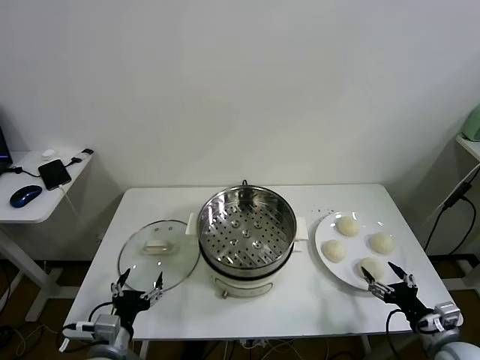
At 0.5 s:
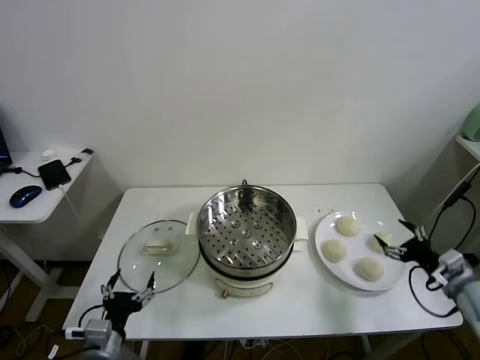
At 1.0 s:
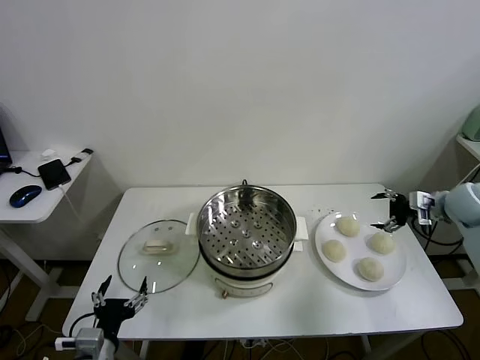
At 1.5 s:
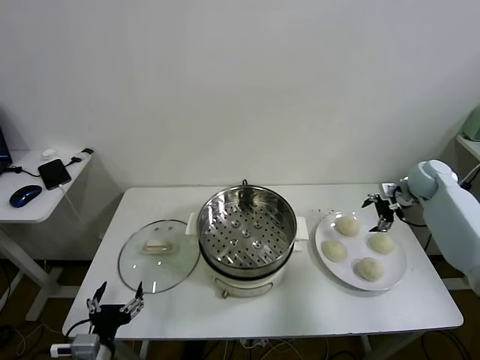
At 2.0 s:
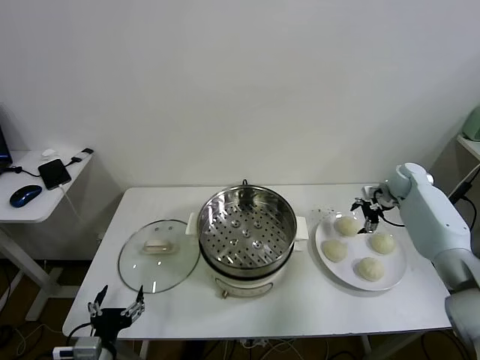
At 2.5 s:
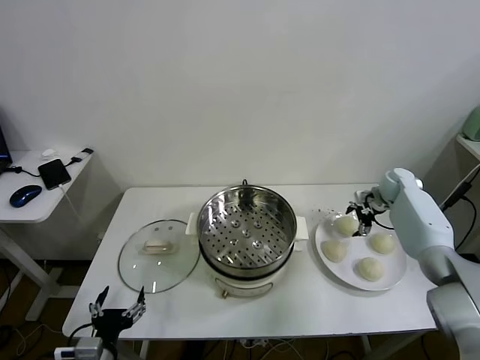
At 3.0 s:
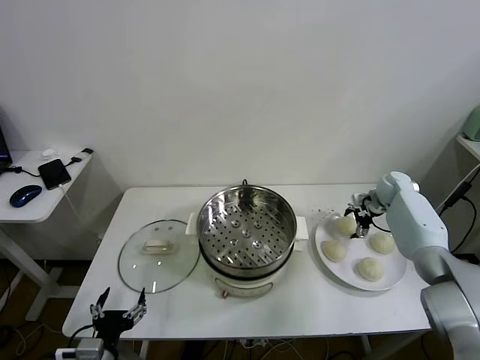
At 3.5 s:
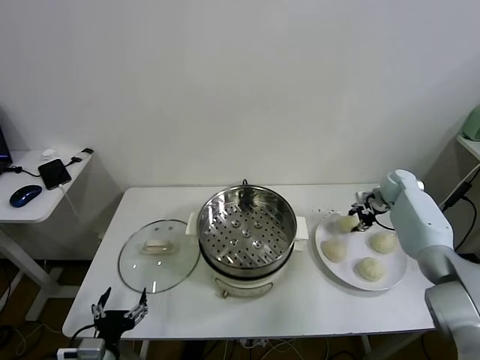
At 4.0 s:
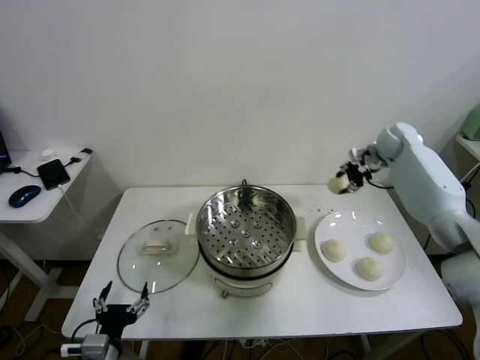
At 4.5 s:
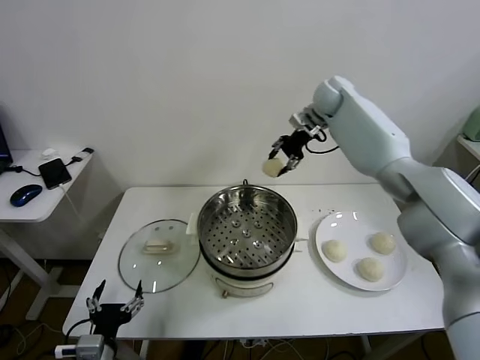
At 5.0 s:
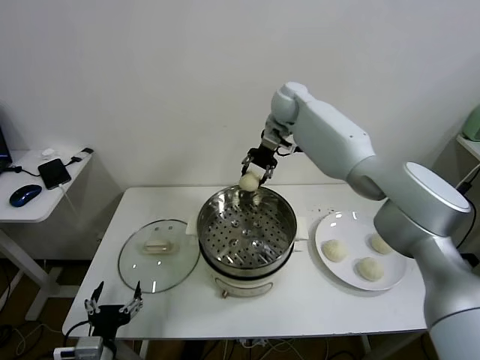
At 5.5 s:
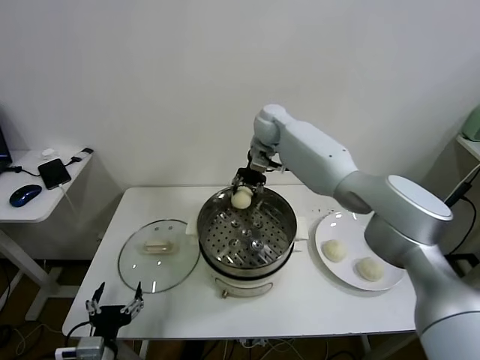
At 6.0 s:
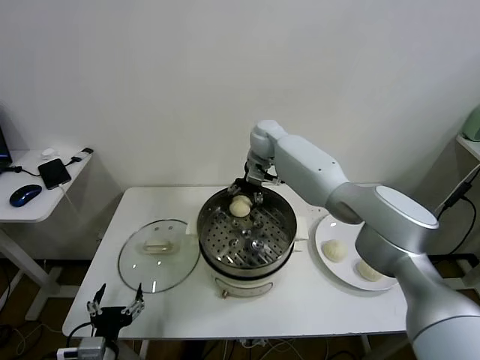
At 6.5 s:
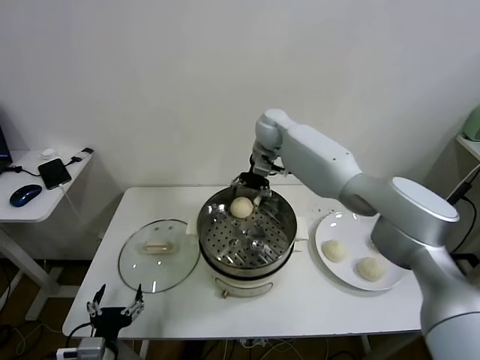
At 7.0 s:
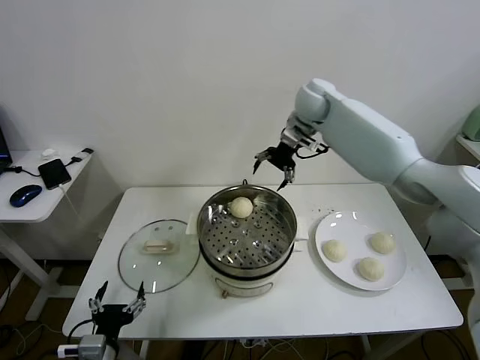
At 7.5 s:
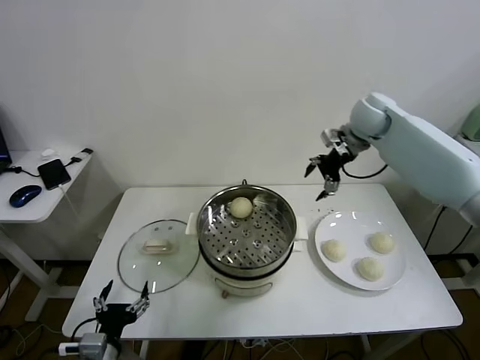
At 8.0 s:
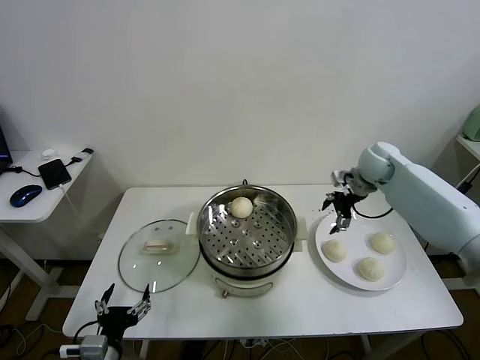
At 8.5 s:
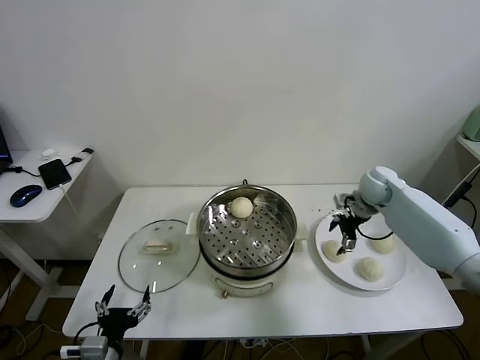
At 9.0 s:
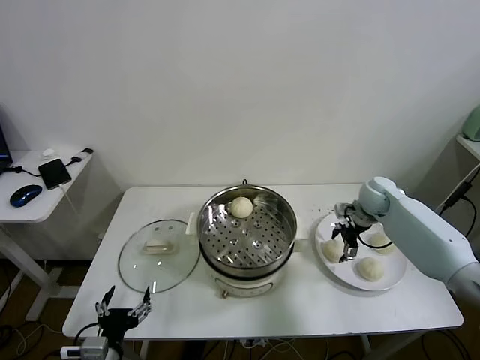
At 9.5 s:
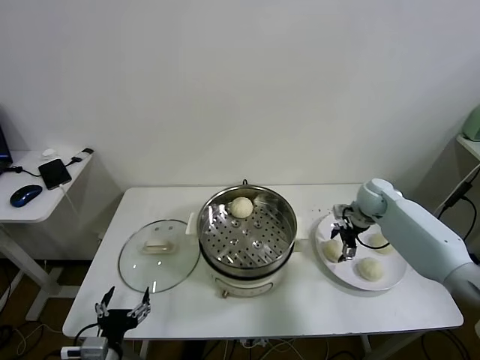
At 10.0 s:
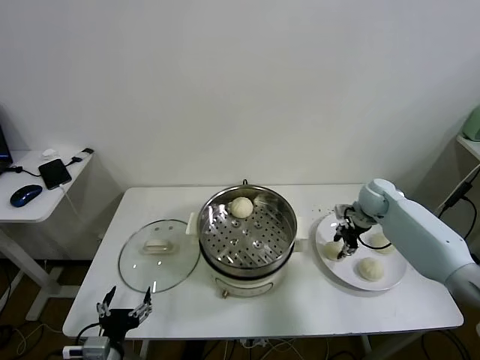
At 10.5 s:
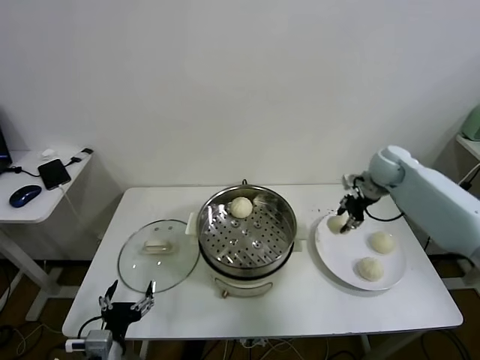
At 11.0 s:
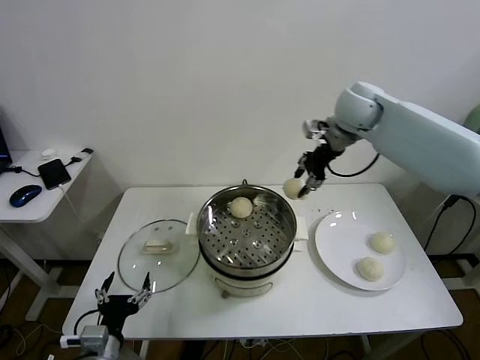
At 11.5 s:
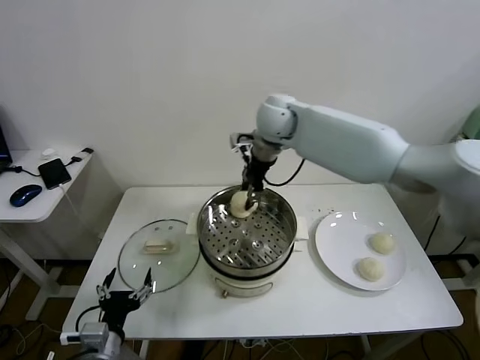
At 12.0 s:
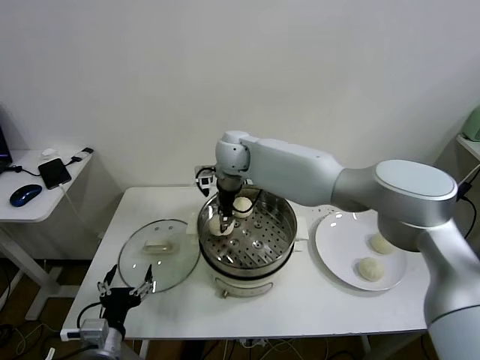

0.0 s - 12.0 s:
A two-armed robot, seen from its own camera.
Task of the whole recording: take steamed baozi put them in steamer.
Step, 0.0 s - 3.0 s: Grasp the baozi in the plate with right gripper.
Step, 3.5 s - 6.0 s: Place the baozi on the steamer with right gripper.
Step, 7.0 s - 9.5 s: Grasp the baozi in the plate with right gripper.
2.0 s - 4.0 s: The right gripper shifts some 15 cm upward and to the left, and closes its fingers.
4.0 s - 6.0 s: The right gripper moves to the left, some 30 cm, and opens up.
6.0 s - 8.0 s: The right gripper travels to the right by some 30 cm.
8.0 s - 10.0 s: The right gripper heads downward, covering roughly 10 cm, and closes its fingers.
10.0 s - 12.0 s: The right gripper heads to the left, covering some 40 cm.

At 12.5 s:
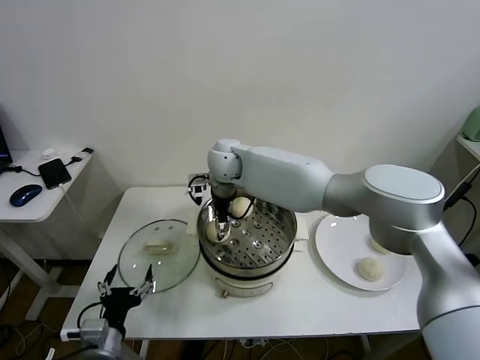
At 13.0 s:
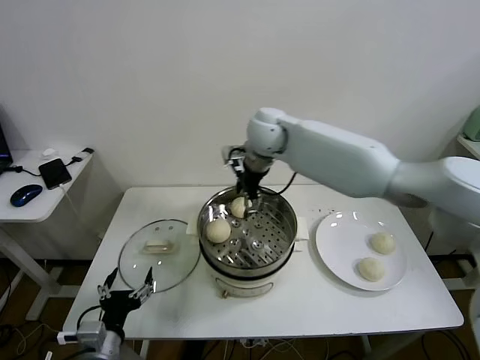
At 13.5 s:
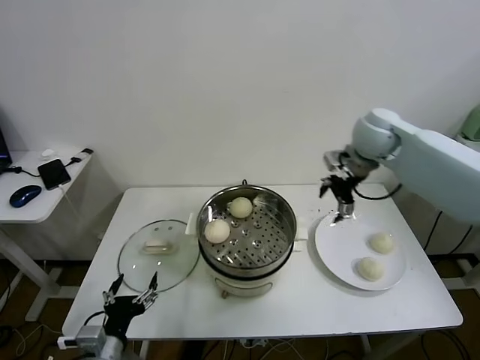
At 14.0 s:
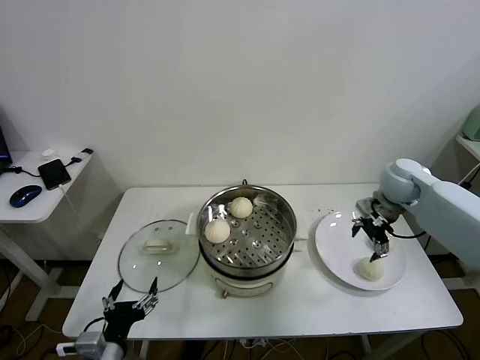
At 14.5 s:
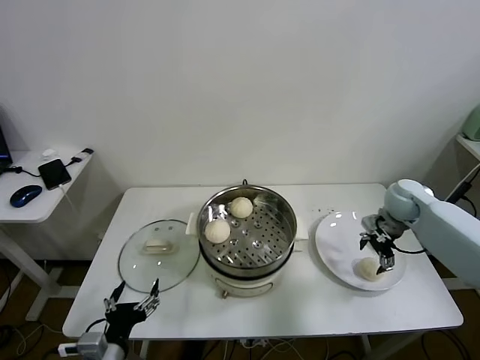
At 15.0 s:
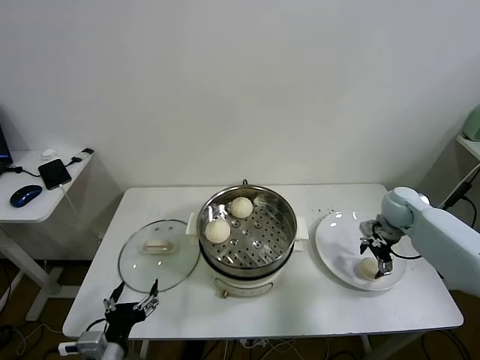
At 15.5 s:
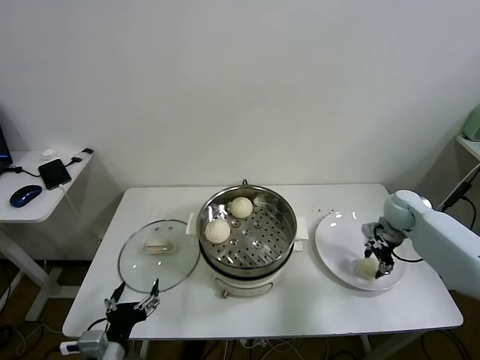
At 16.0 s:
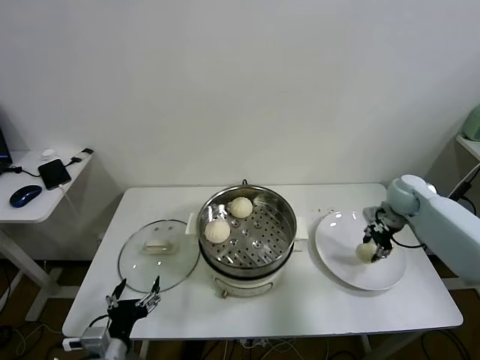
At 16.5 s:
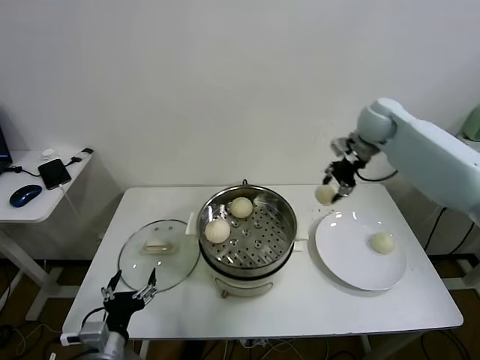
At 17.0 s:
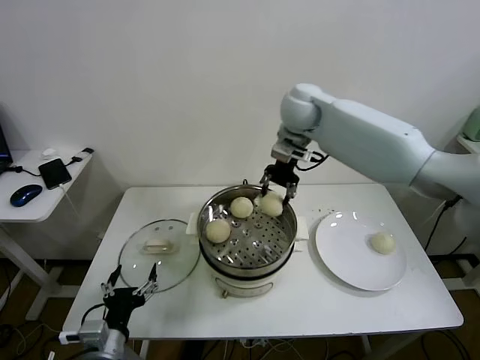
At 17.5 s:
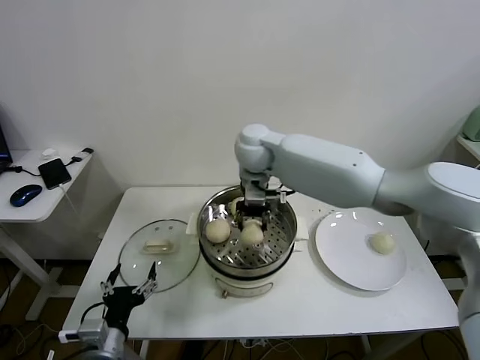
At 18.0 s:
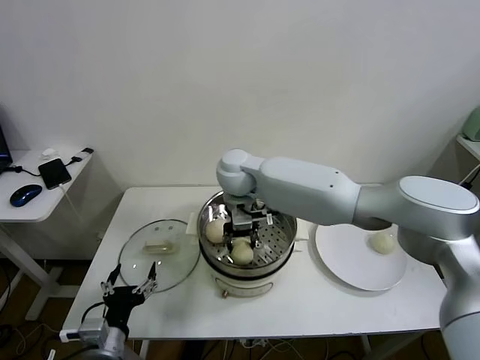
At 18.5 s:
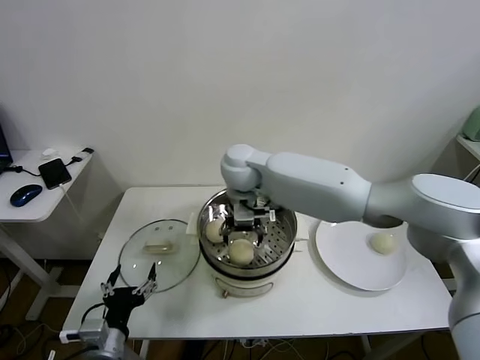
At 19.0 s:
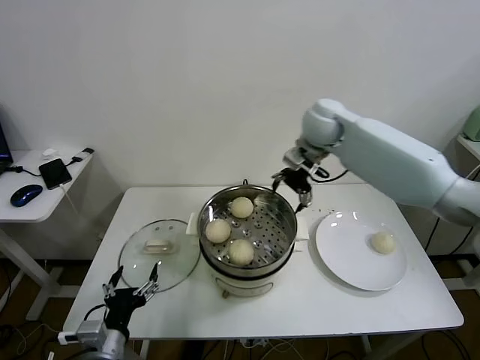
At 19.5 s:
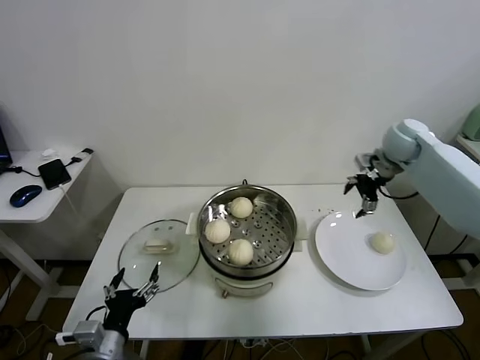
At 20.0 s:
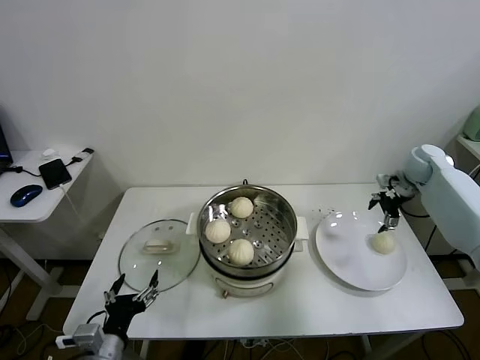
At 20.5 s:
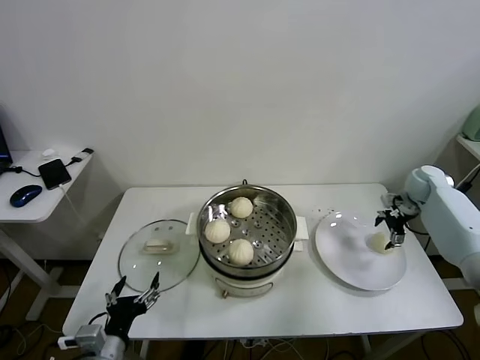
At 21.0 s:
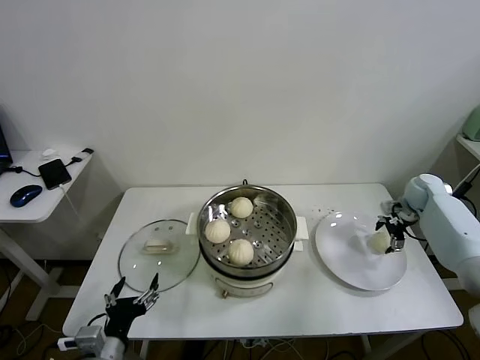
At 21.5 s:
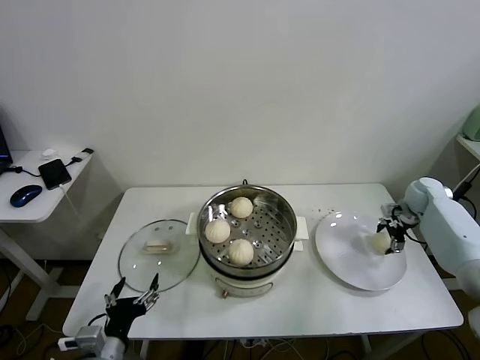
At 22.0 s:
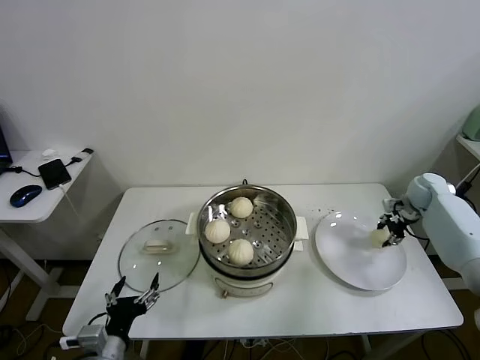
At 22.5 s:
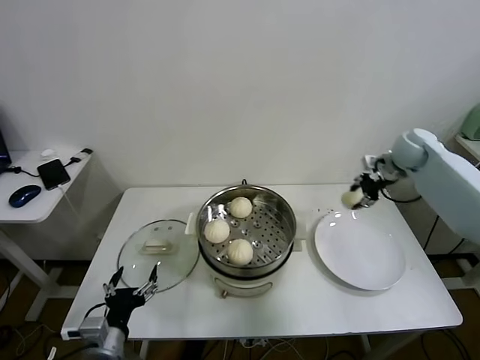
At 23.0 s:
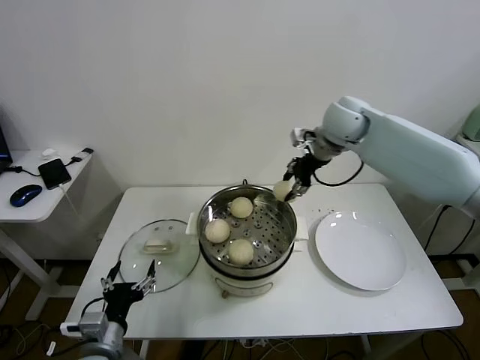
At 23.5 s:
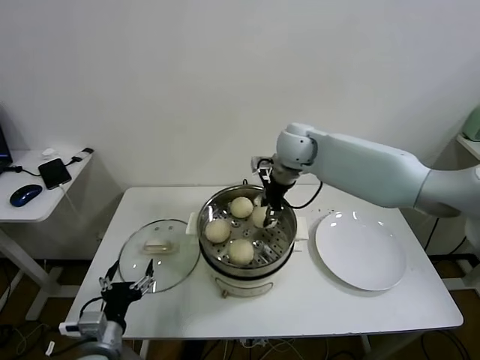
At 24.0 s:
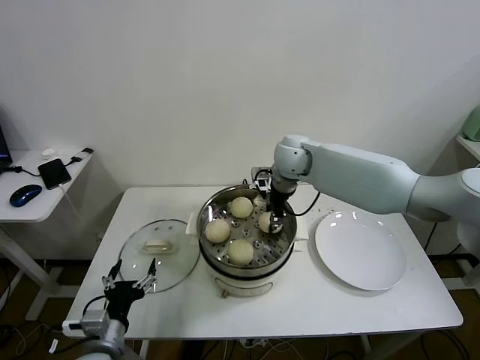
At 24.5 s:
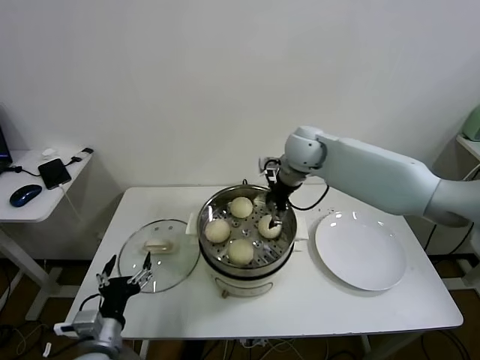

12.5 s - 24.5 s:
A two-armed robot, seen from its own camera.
Task of the whole recording: take steamed baozi put them in steamer.
Step, 13.0 s - 15.5 s: Grasp the baozi in the plate with right gripper.
Step, 16.0 s - 18.0 s: Place the baozi on the steamer with right gripper.
Step, 18.5 s - 21.5 s: Grasp the baozi in the plate with right gripper.
Step, 22.0 s - 24.0 s: Place the baozi on the steamer with right gripper.
12.5 s - 14.5 s: The right gripper is displaced to the right by some 40 cm.
14.5 s - 16.5 s: The right gripper travels upward, to the left and forward by about 25 cm, and closes its fingers.
16.5 s - 18.5 s: The right gripper travels to the left by some 30 cm, and opens up.
18.5 s - 20.5 s: The right gripper heads to the right, covering some 50 cm.
20.5 s - 22.5 s: The right gripper heads upward and to the left, covering approximately 15 cm, and closes up.
22.5 s - 24.5 s: The right gripper moves to the left, approximately 25 cm, and opens up.

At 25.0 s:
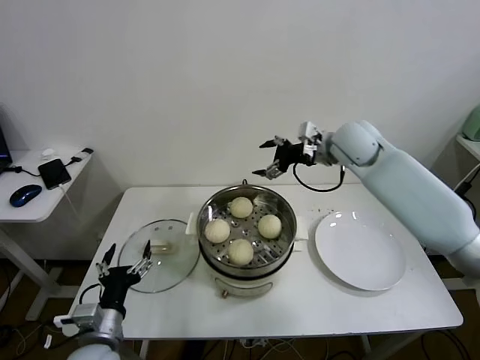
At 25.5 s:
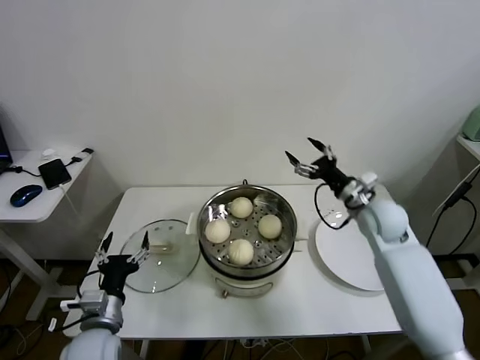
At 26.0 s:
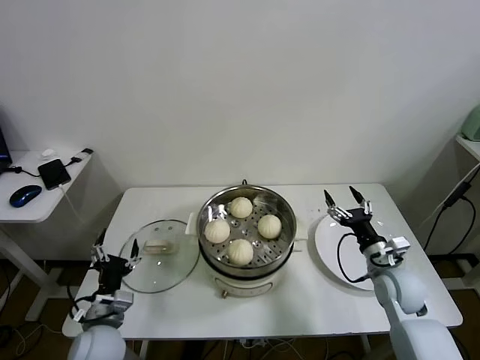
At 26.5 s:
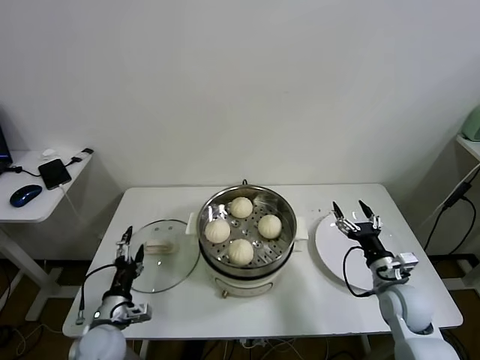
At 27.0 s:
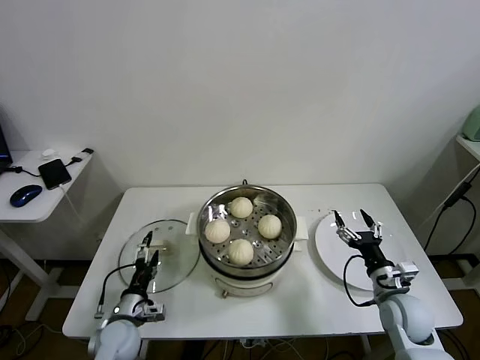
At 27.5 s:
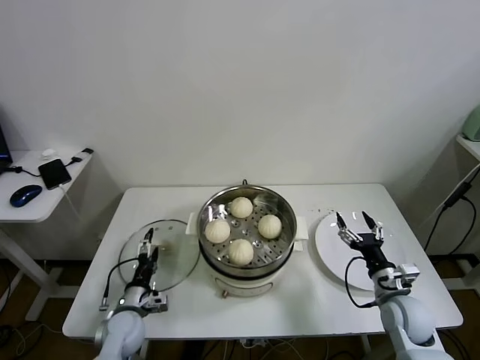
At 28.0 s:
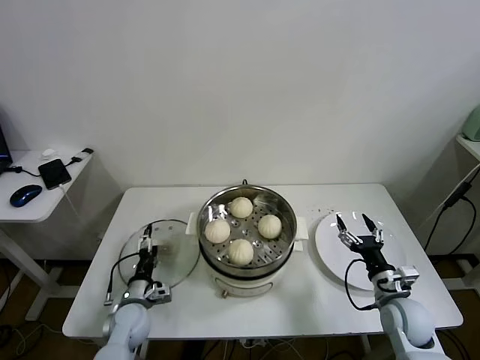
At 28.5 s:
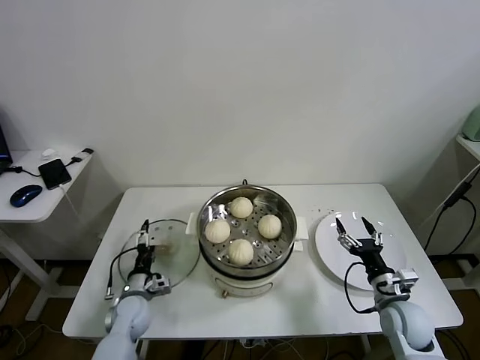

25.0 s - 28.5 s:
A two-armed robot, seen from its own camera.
Task of the whole recording: take steamed baozi put them in steamer.
25.0 s - 27.0 s: The left gripper goes roughly 15 cm downward and forward; the right gripper travels downward and backward by about 40 cm.
27.0 s - 28.5 s: The left gripper heads forward, covering some 5 cm.
